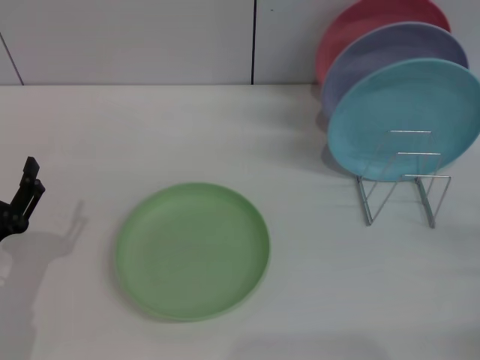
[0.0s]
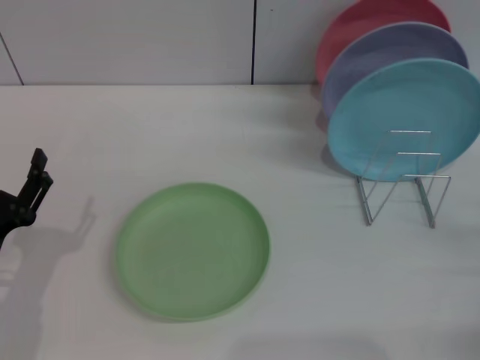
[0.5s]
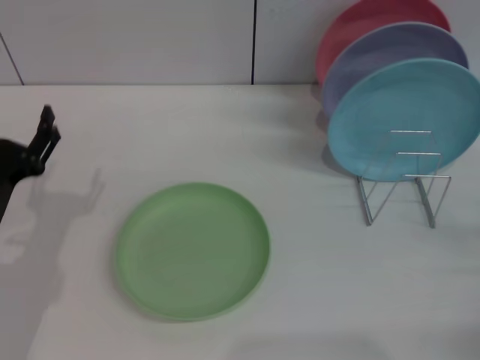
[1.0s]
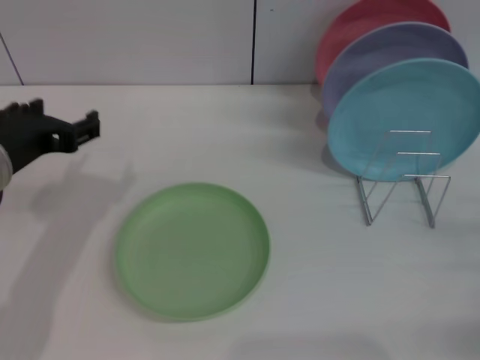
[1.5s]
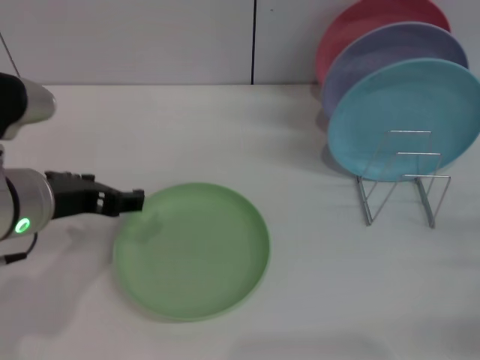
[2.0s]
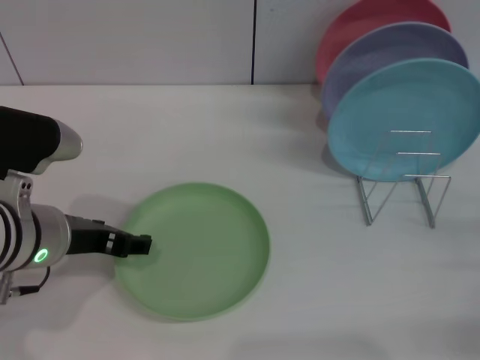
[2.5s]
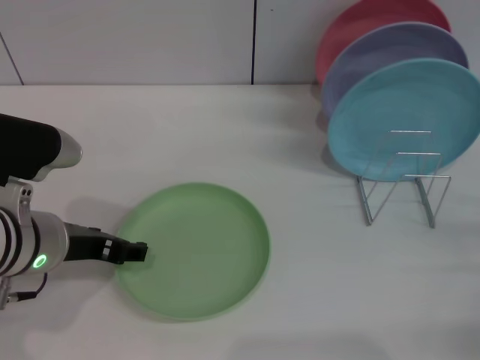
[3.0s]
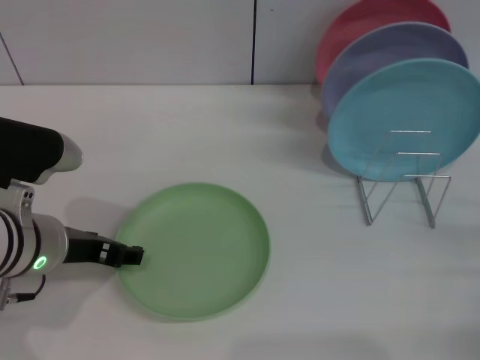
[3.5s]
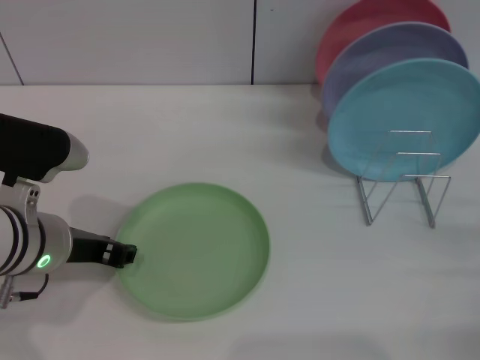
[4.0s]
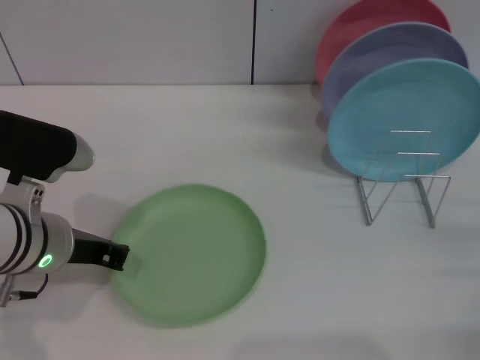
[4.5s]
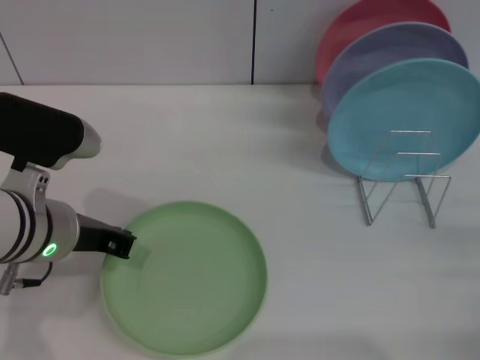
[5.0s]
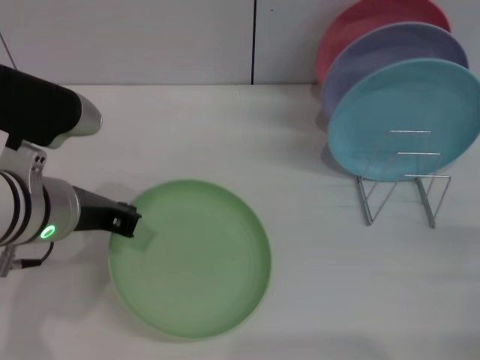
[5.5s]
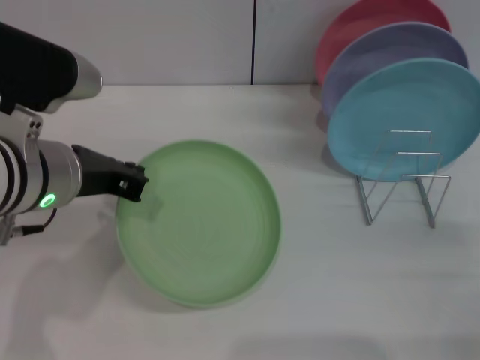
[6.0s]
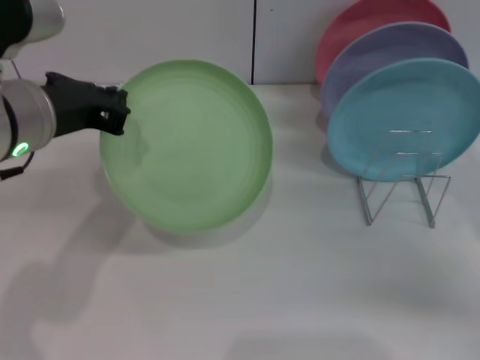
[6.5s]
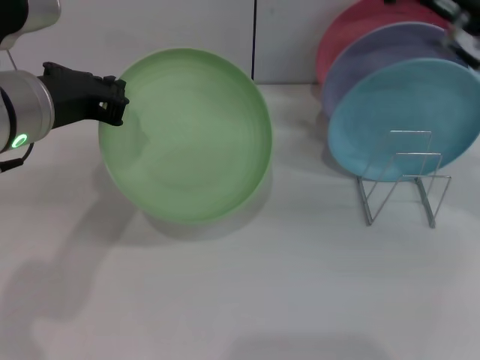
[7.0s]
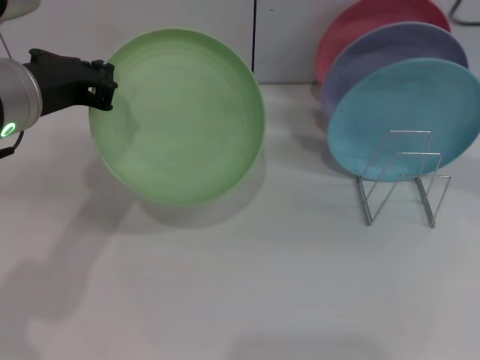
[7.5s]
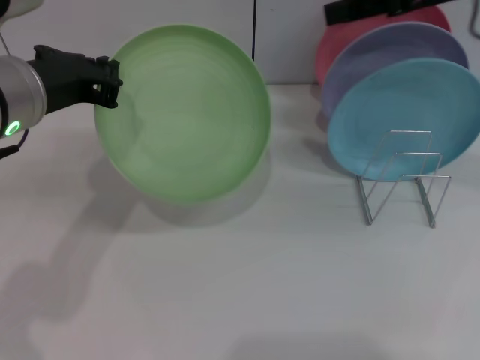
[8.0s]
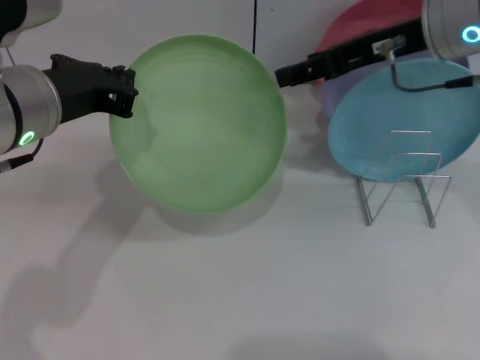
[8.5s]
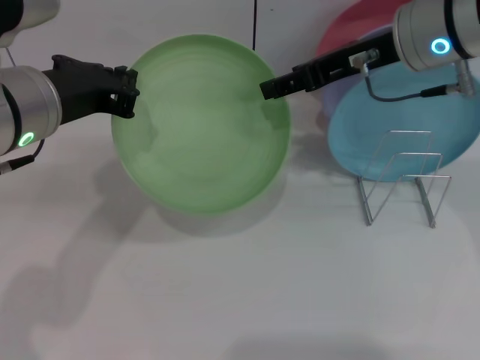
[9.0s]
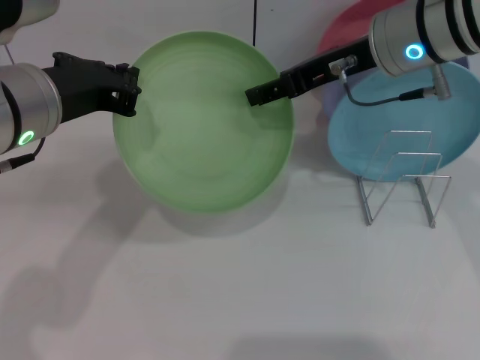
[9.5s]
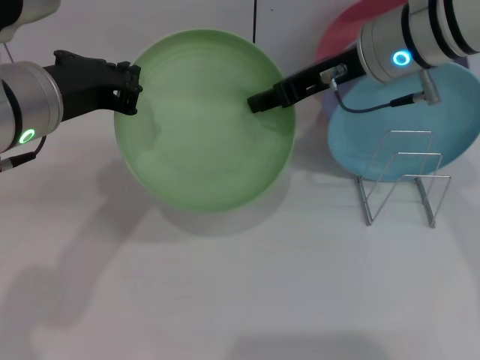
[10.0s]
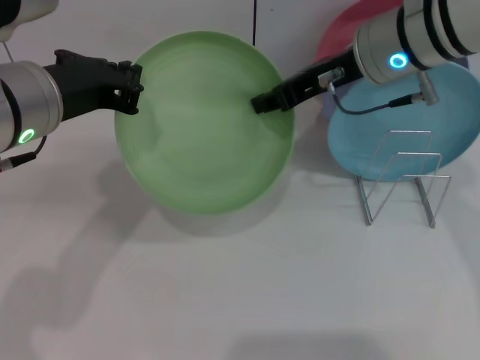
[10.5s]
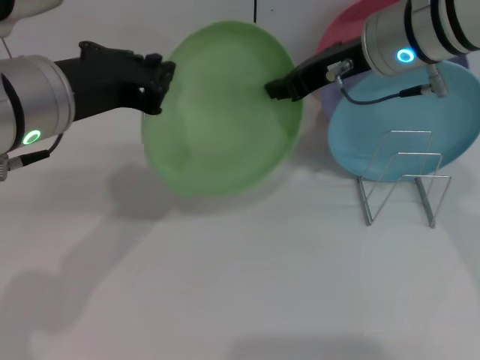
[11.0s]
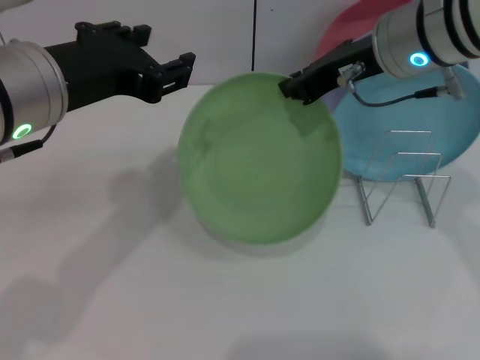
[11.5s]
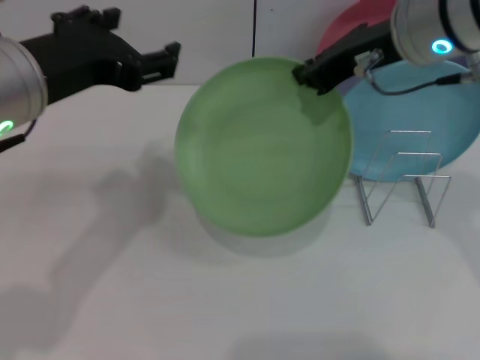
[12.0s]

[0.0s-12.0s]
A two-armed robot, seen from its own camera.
Task of the whole recording: Grip the plate with one hand, pass it to the other, then set it on the shelf.
Step, 0.0s to 6.5s: Pick up the plate with the left gripper.
0.0s to 2.0s: The left gripper goes about 15 cm upward, forward and to the right.
2.0s to 4.0s: The grippers stay close to where they were, moving slightly.
4.0s to 6.0s: The left gripper is displaced upward by some 5 cm, and closes its fingers.
6.0s to 8.0s: The right gripper shifts about 30 cm upward, forward and to the left.
8.0s to 10.0s: The right gripper travels to the left and downward by about 10 cm.
10.0s to 12.0s: The left gripper opens its fingers. Meanwhile the right gripper moves approximately 5 cm, and closes up.

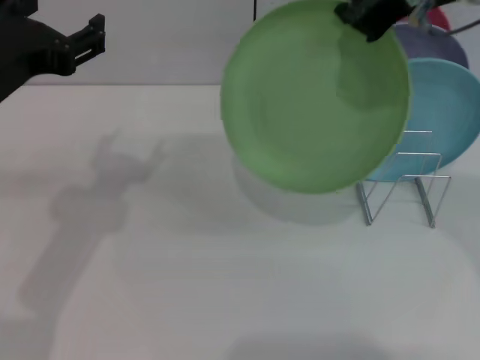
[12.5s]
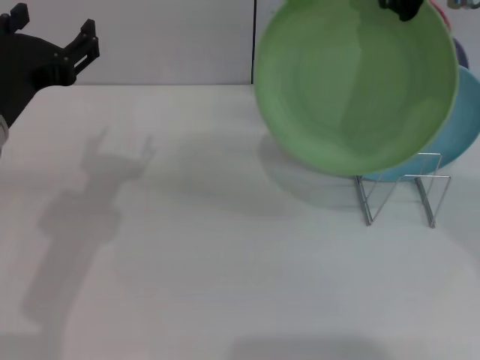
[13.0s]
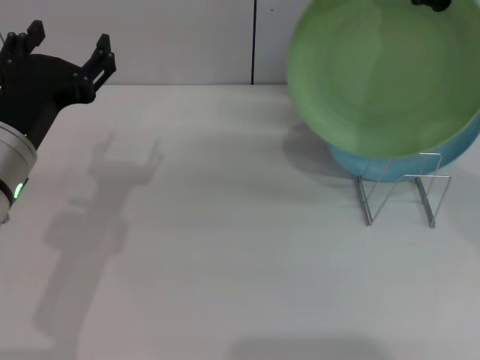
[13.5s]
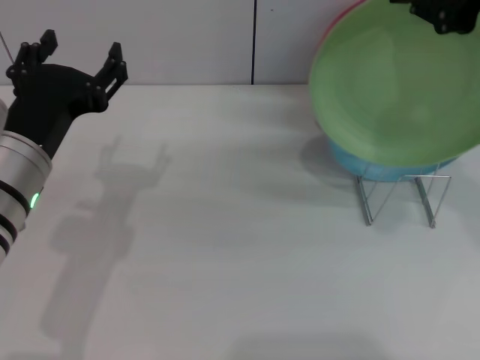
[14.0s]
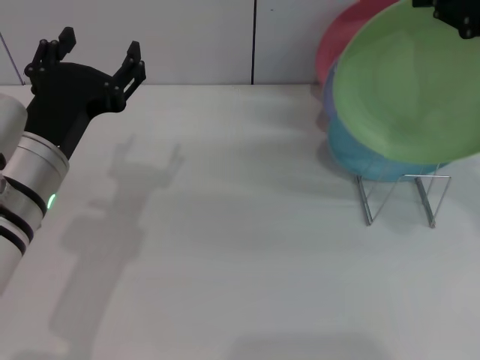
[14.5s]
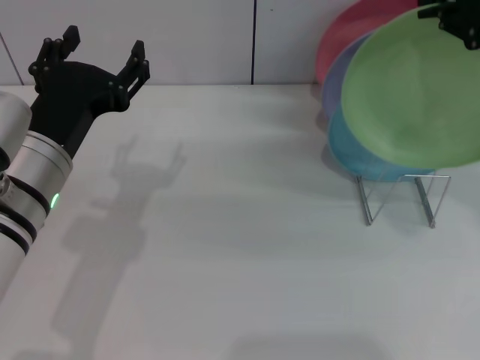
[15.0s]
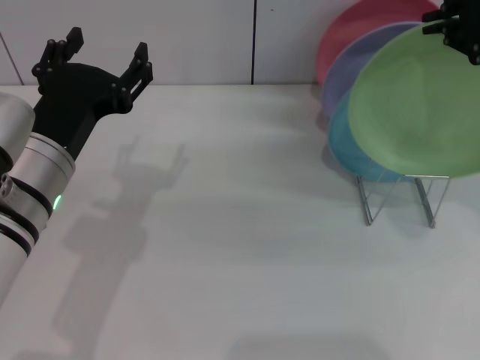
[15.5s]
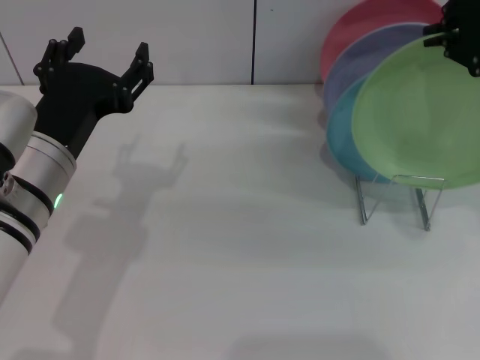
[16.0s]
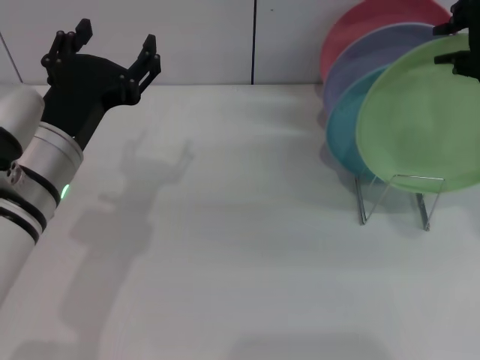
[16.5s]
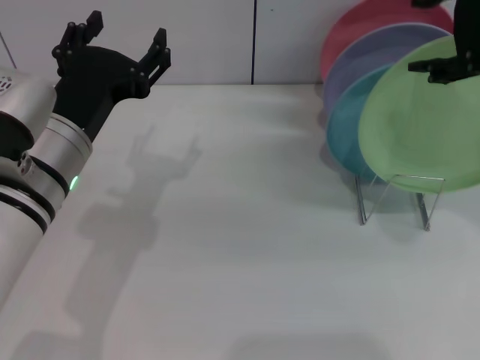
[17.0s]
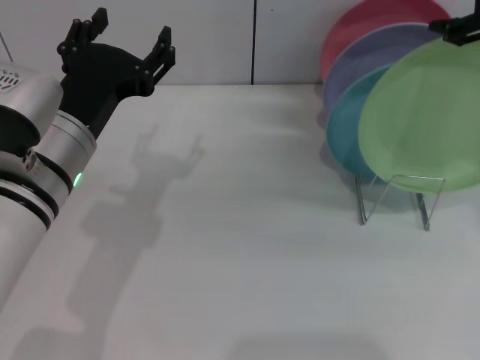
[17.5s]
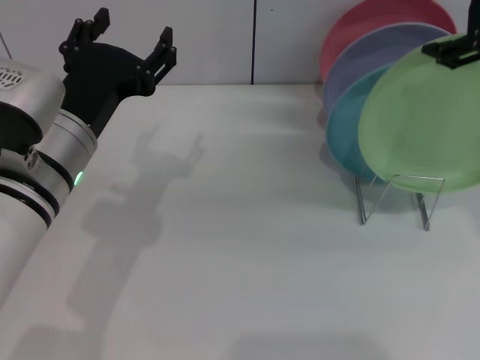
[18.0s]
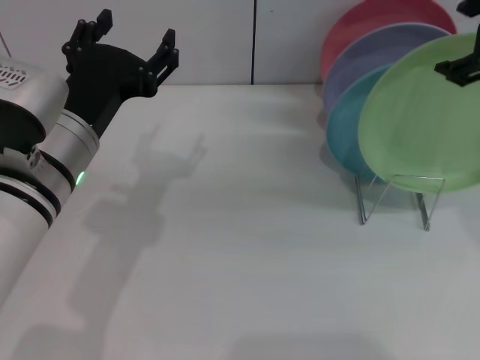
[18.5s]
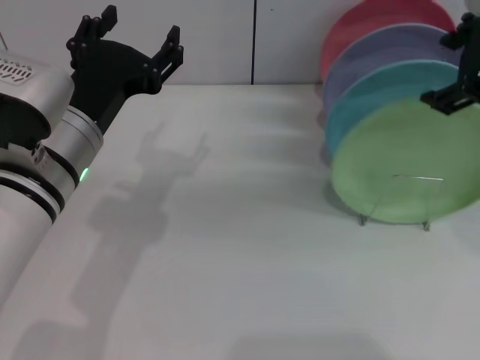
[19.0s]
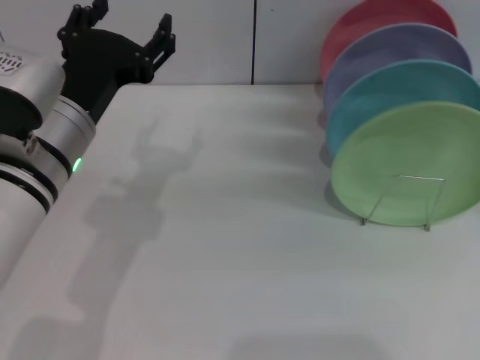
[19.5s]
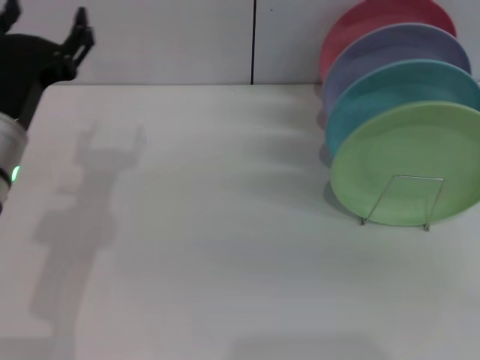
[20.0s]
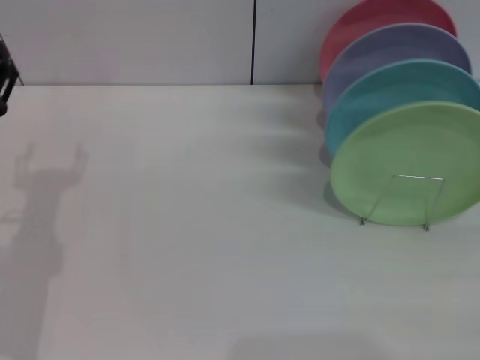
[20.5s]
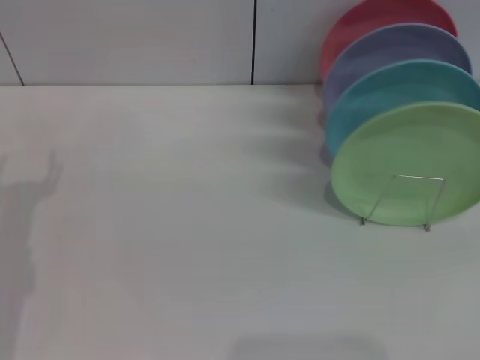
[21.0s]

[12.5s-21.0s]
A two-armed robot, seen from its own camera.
Task of the whole recording: Grip the plate with one hand, pass it to the other, then set it on the shelf.
Step, 12.5s to 19.0s: Place the plate on the shelf with the right gripper.
12.5s to 14.5s: The left gripper heads downward, covering some 10 cm. The right gripper goes some 5 cm to the right.
14.5s to 16.5s: The grippers make only small movements.
16.5s to 19.0s: The right gripper opens up.
19.0s to 21.0s: The left gripper travels to the left and downward by about 15 cm. Meanwhile the right gripper is displaced downward, to the right and backward by roughly 35 cm.

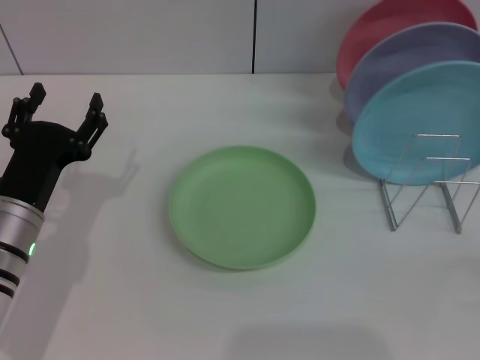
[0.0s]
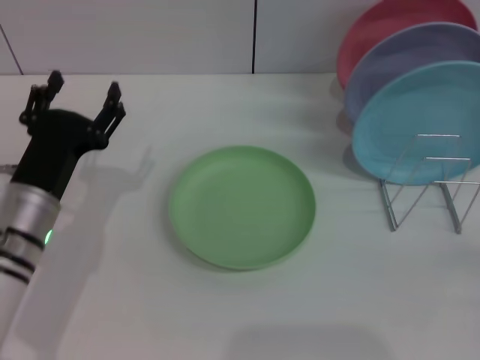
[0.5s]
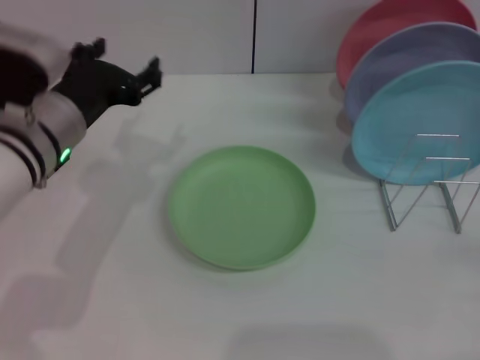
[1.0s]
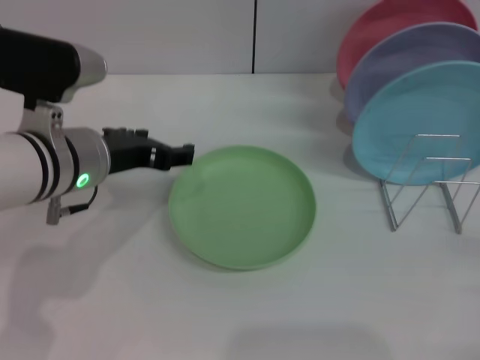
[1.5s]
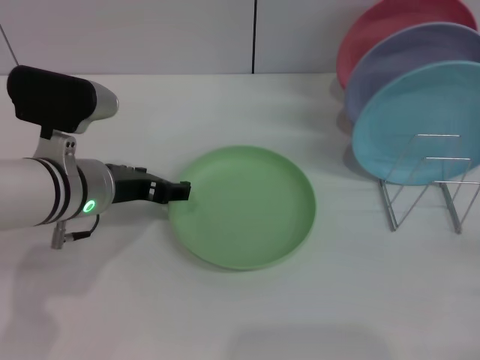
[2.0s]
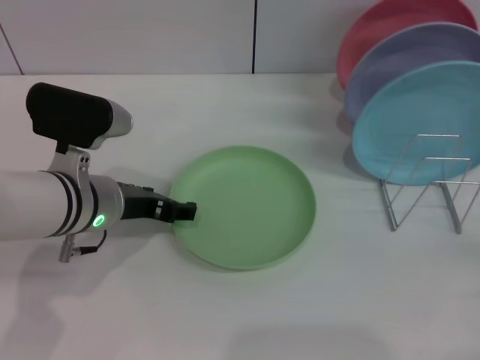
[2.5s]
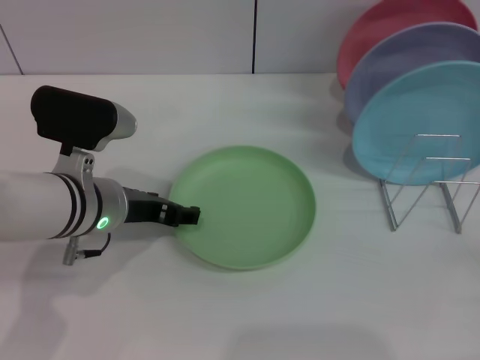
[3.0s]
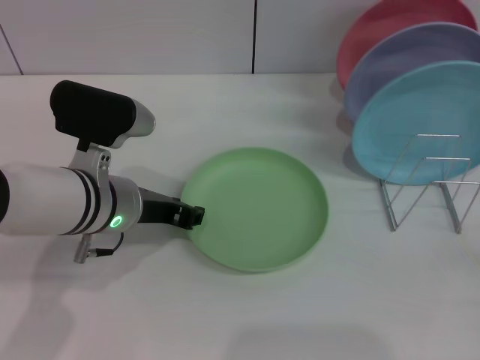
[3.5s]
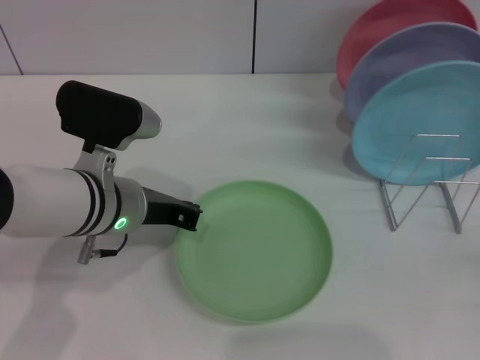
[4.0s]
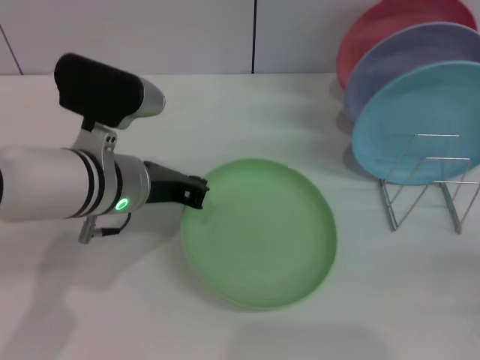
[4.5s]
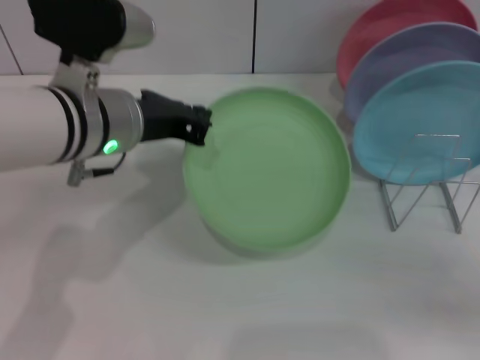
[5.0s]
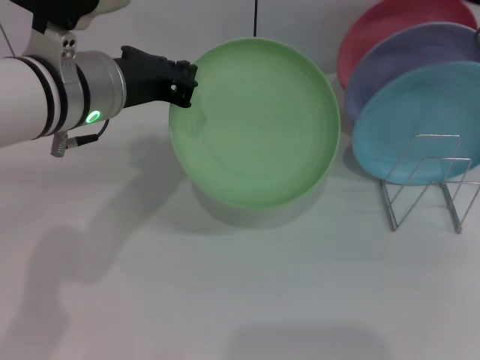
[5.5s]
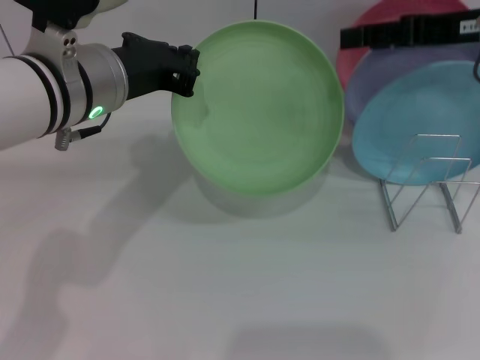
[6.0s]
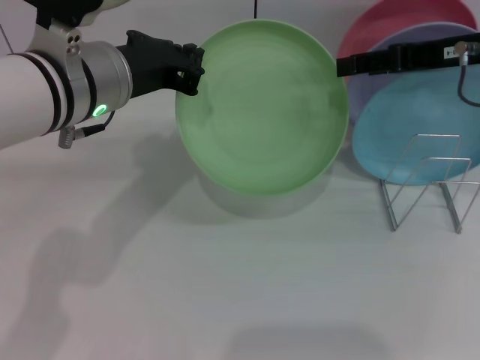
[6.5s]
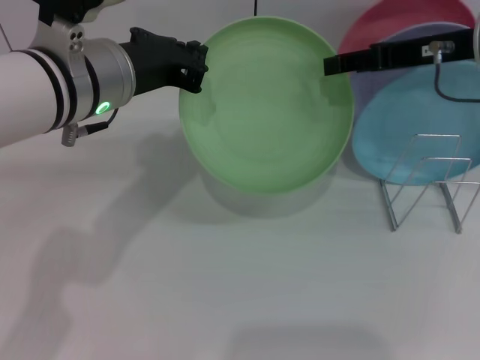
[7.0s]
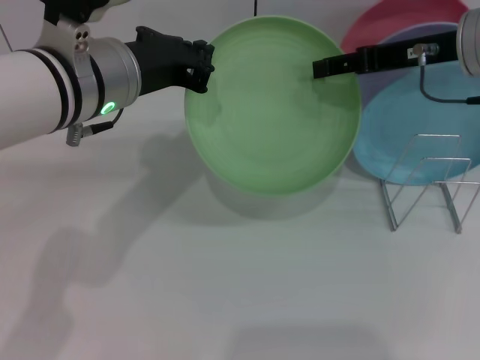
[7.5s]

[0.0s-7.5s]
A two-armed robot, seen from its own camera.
Task of the whole recording: Grip the plate with one hand, pass it to the other, then set it on the shelf.
Step, 0.0s to 4.5s: Pick up the plate with the left gripper.
0.0s to 2.0s: The left gripper is displaced upward and to the right by some 10 cm.
2.0s to 4.0s: The left gripper closes up.
4.0s to 5.5s: The left gripper shifts approximately 10 cm upward, while the right gripper goes approximately 30 cm forward, upward and to the left.
5.5s to 7.5s: The right gripper moves approximately 5 cm.
